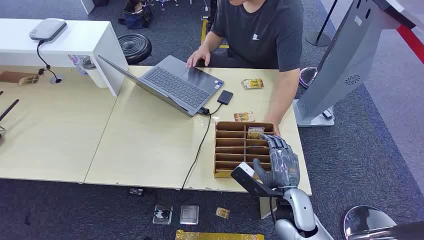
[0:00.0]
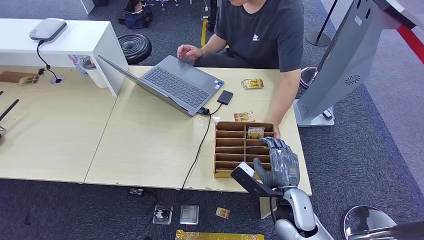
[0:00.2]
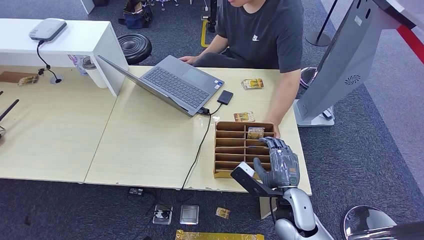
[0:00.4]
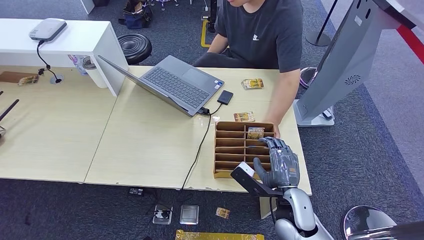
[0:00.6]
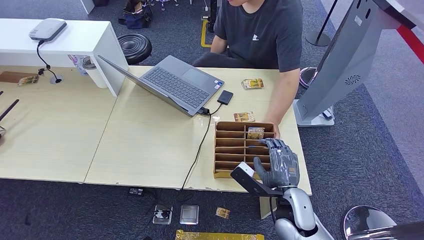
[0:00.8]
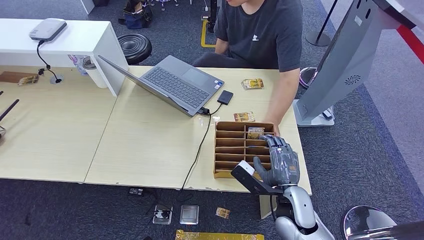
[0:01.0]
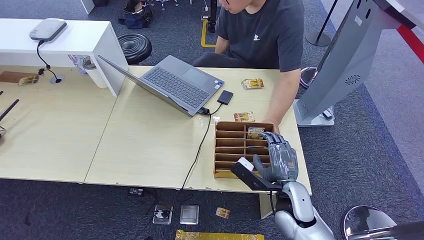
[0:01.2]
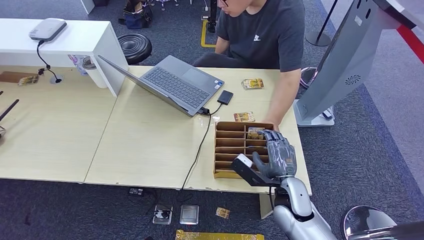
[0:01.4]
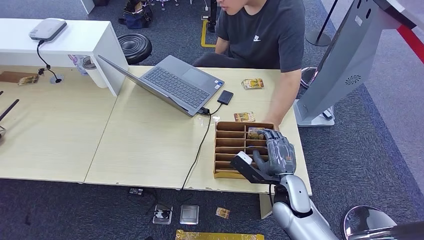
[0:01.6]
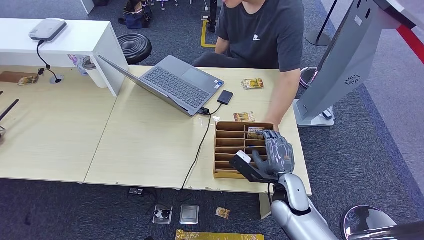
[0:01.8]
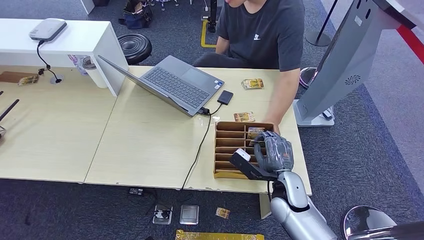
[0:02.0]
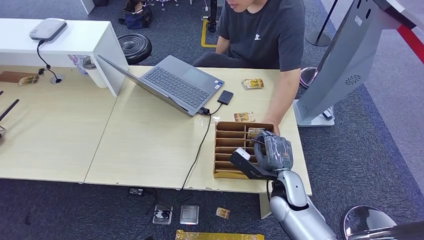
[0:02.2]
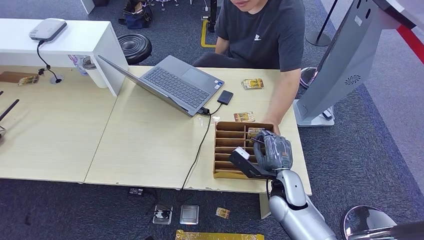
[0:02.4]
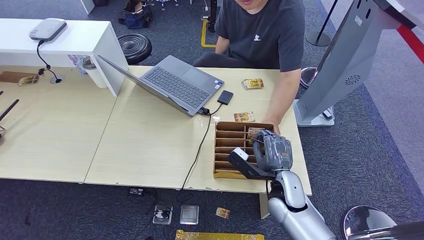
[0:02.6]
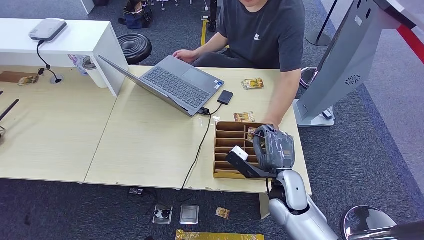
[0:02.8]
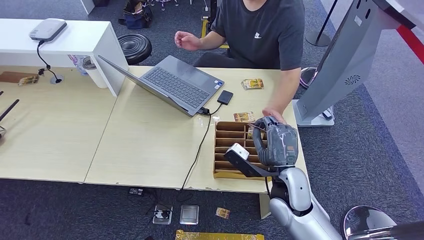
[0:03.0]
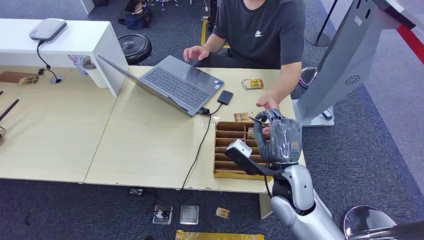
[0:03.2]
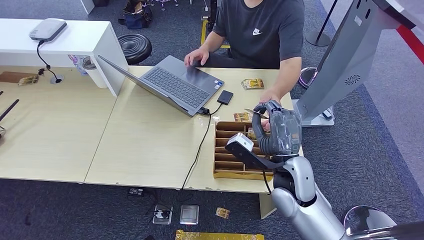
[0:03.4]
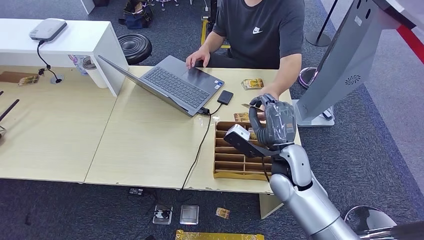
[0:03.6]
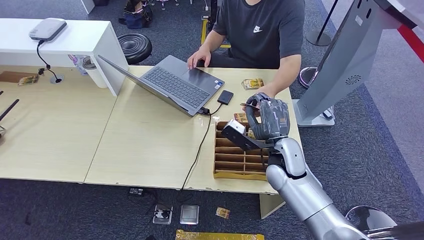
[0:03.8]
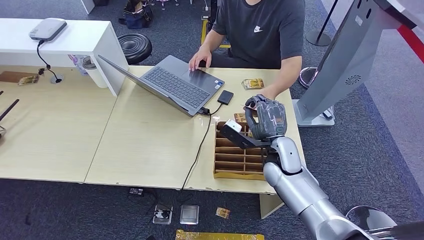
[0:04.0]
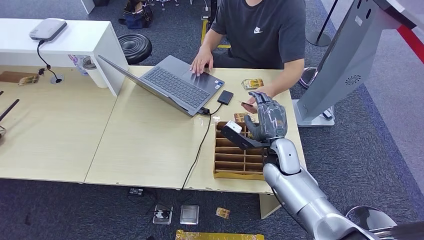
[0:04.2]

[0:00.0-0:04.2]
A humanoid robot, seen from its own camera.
Step, 0:00.0 to 0:02.2: Pick up the key card from the card box.
Step, 0:02.6 to 0:04.2: Hand the key card to the target.
0:01.4 to 0:02.8: There are only small adjustments of the hands.
0:02.8 to 0:04.2: The right hand moves forward, roughly 10 cm.
